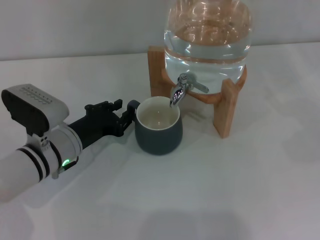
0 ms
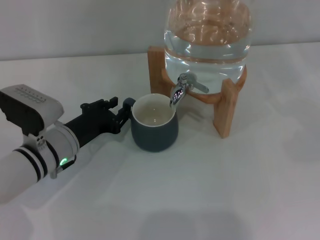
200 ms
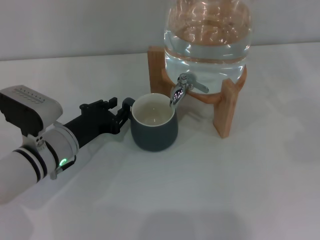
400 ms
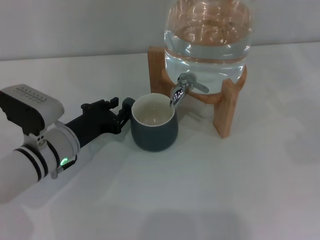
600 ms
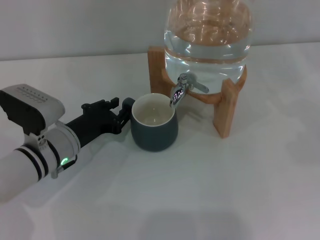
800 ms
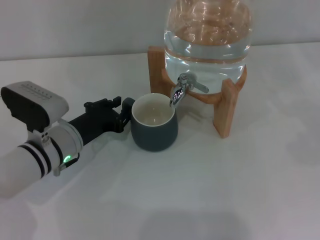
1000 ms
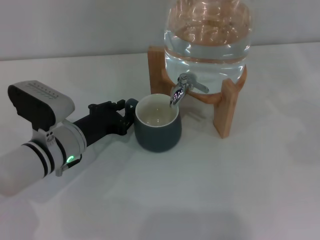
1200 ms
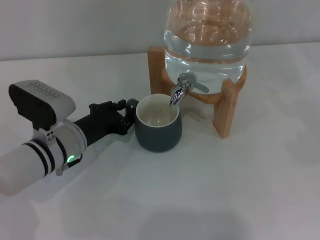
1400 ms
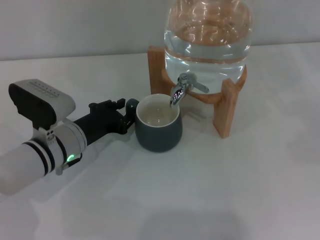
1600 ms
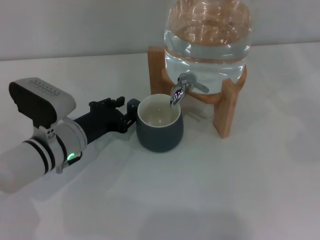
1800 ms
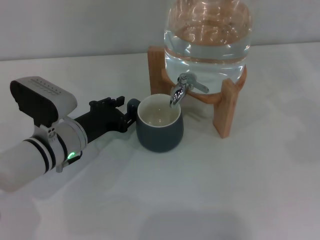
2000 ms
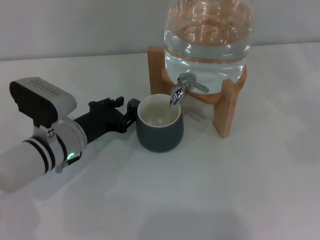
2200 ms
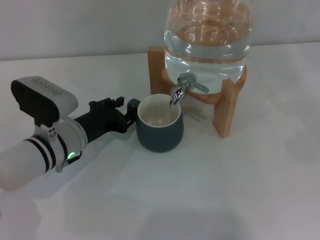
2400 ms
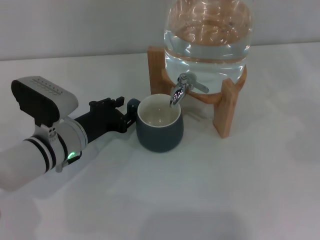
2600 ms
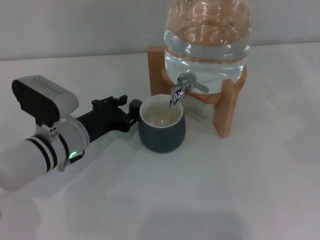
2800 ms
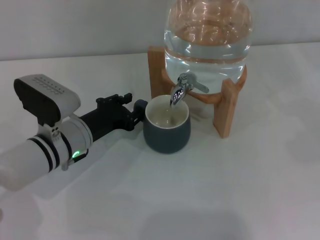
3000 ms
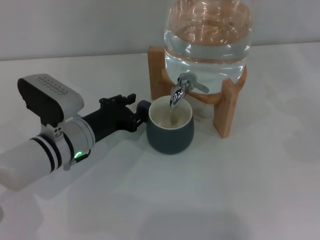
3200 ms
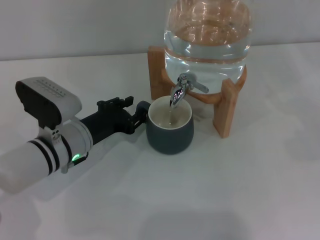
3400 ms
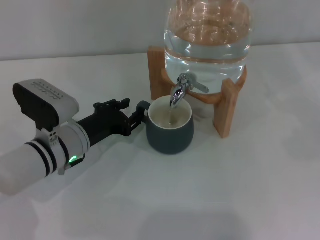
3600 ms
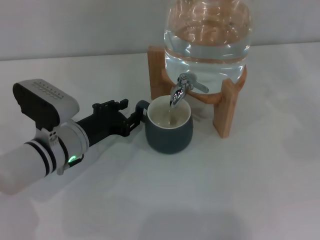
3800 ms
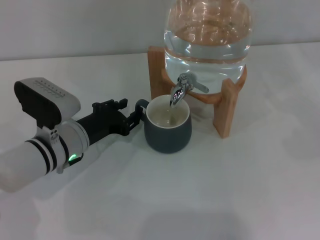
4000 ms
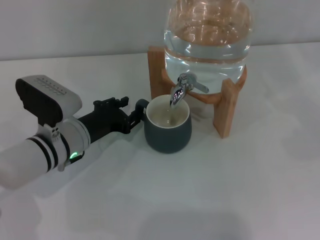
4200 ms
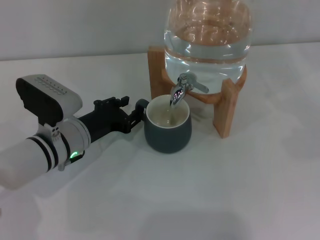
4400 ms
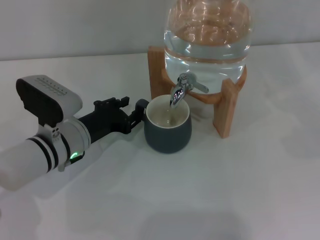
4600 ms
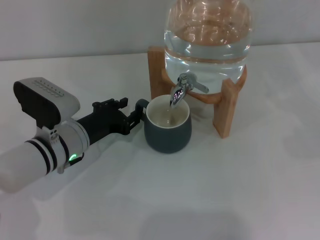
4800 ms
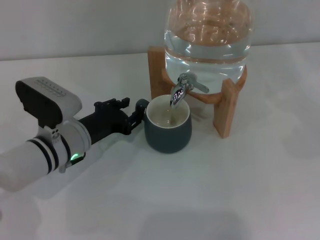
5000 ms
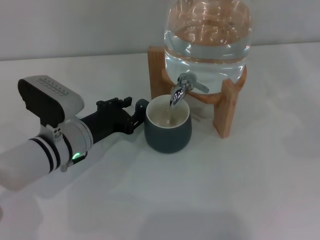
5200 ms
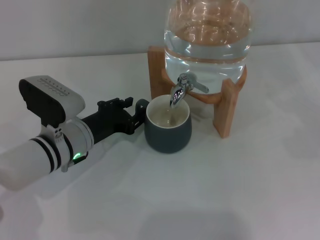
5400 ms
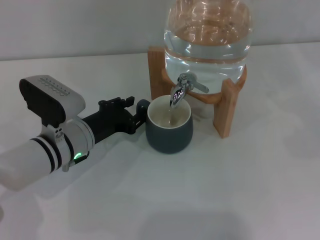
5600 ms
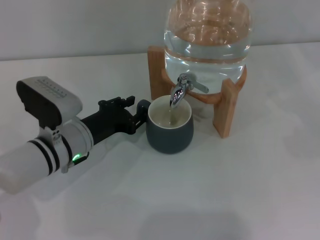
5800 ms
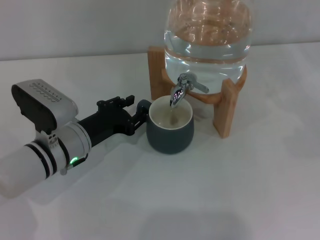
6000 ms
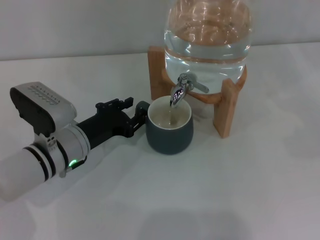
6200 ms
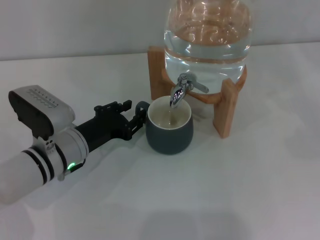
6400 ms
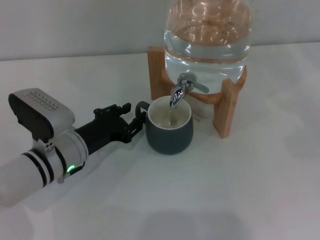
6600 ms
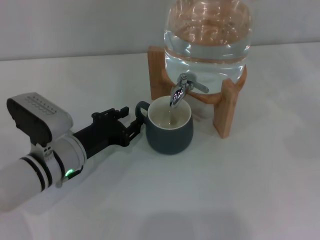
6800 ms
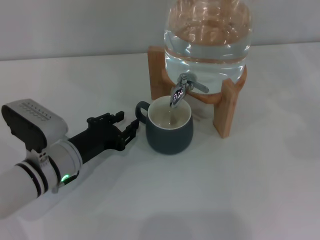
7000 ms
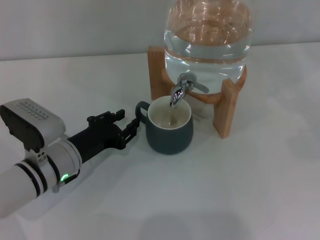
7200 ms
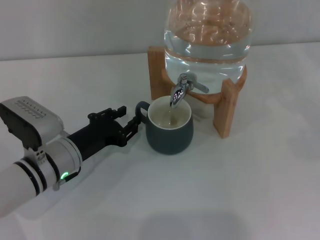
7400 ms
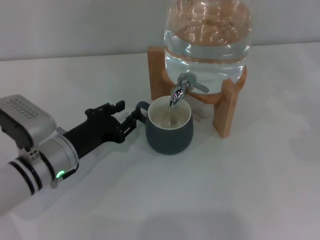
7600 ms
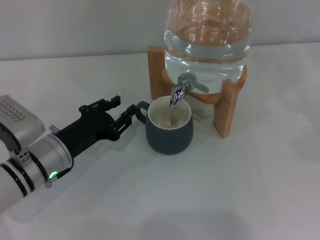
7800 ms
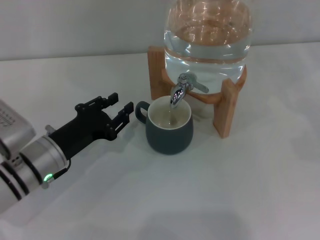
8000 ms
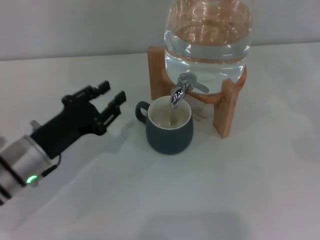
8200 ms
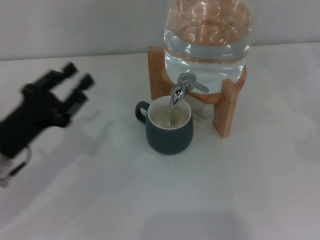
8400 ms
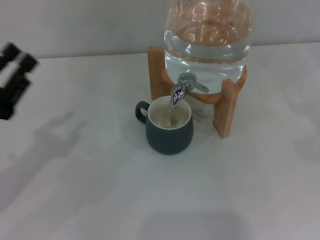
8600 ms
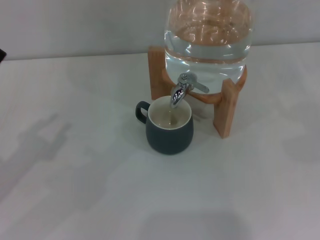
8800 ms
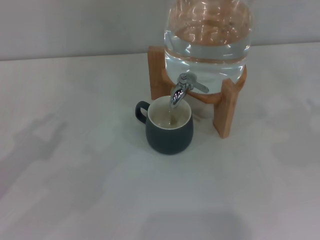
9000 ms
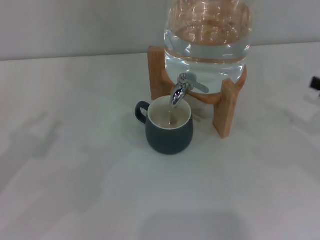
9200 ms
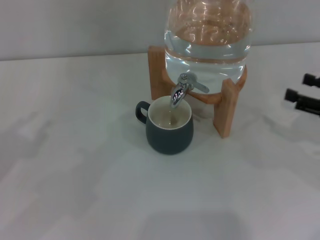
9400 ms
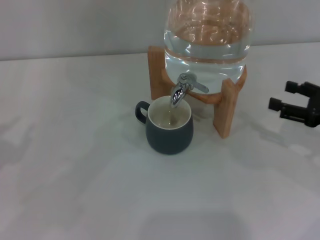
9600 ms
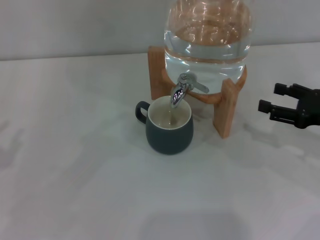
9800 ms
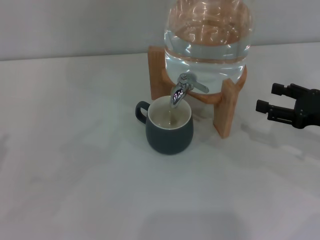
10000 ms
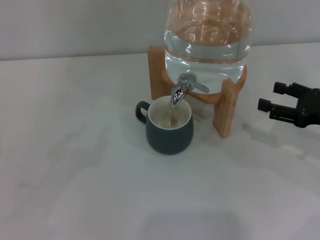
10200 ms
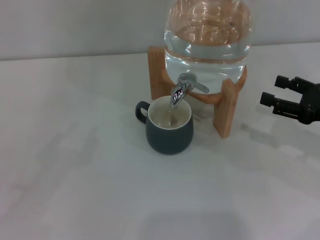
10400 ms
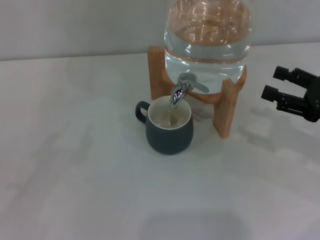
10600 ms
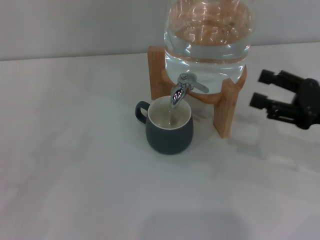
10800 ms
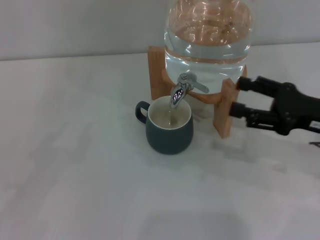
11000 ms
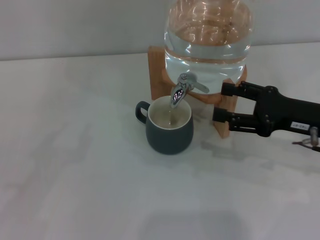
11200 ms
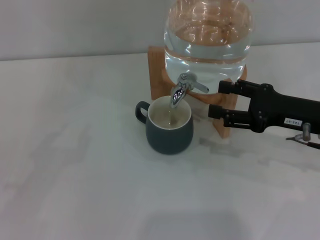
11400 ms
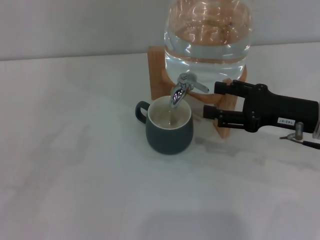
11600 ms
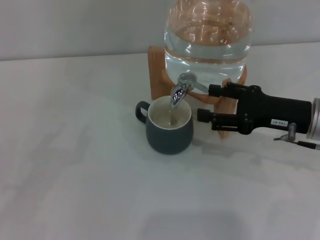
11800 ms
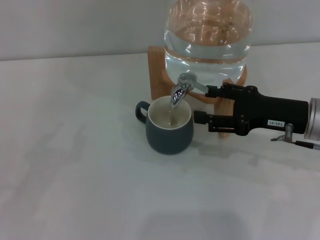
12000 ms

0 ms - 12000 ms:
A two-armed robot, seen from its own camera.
Task of the whole recording: the left gripper pick up the black cup and place it horizontally under the faucet, the right gripper turn on the faucet to fill the cup, and then turn off the faucet.
Step, 0 ms - 7800 ms: Move the cup beneath the water dispenser nozzle with the left gripper.
0 ms - 1600 ms: Neither gripper changes place.
1600 ms - 4400 ms: Neither gripper changes place.
4400 ms - 7600 ms: There are only small adjustments of the grippers.
7600 ms - 9000 ms: The left gripper moves to the left, upward and backward, some 20 cm.
9000 ms - 10400 ms: The right gripper moves to the left, some 10 cm.
10400 ms - 12000 ms: The right gripper heads to the left, covering approximately 10 cm.

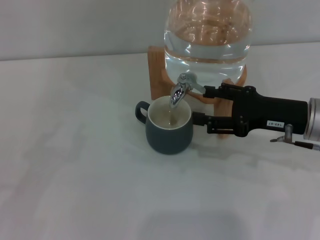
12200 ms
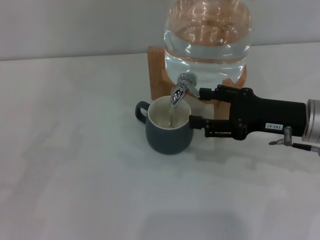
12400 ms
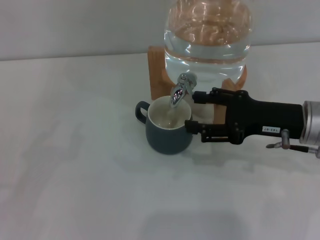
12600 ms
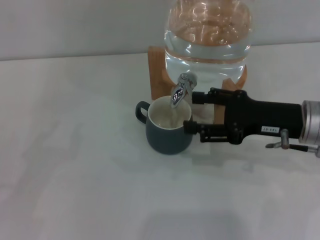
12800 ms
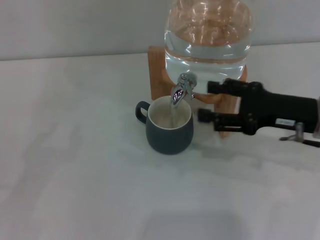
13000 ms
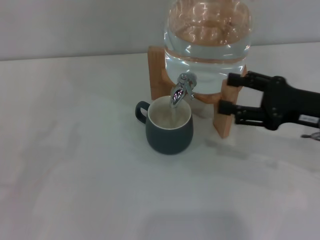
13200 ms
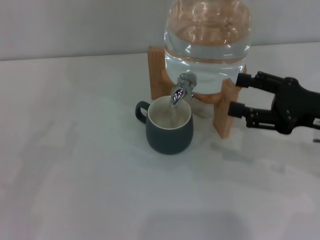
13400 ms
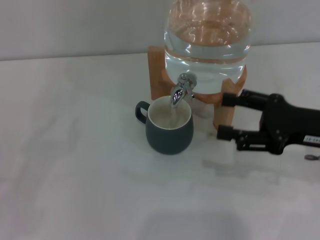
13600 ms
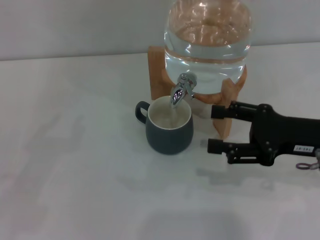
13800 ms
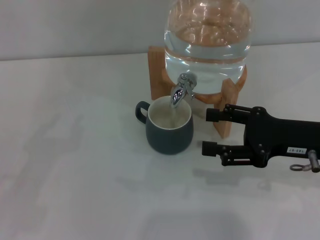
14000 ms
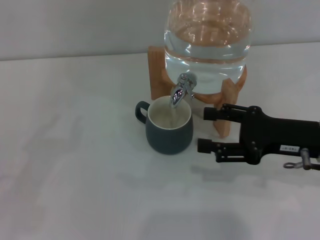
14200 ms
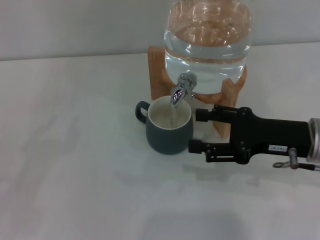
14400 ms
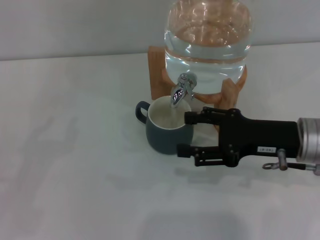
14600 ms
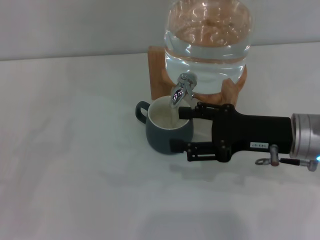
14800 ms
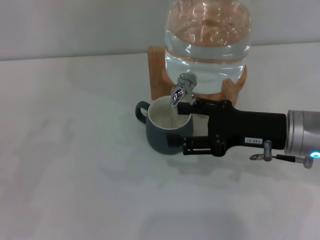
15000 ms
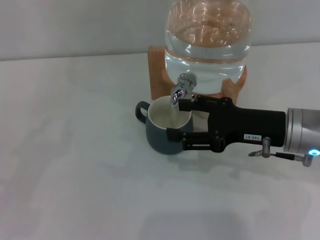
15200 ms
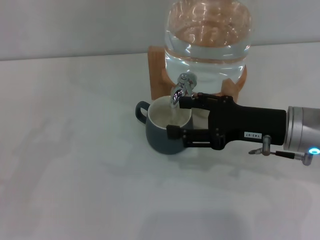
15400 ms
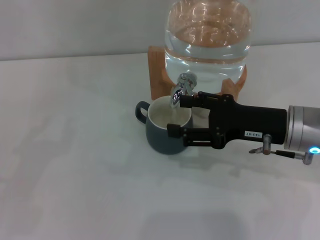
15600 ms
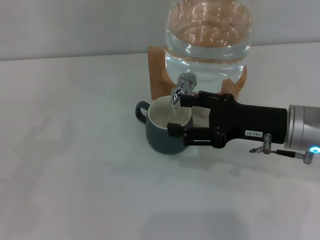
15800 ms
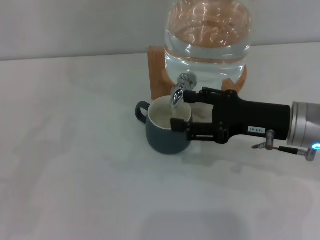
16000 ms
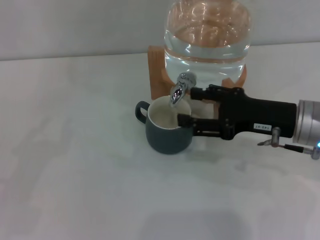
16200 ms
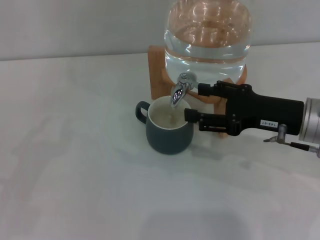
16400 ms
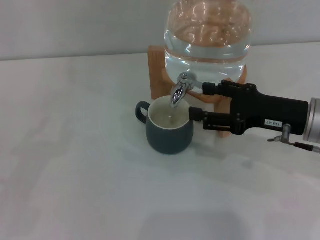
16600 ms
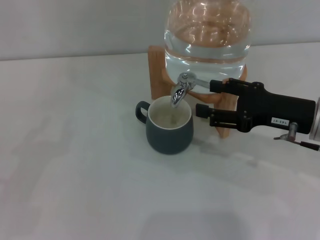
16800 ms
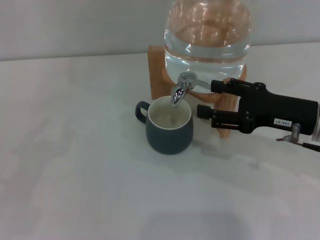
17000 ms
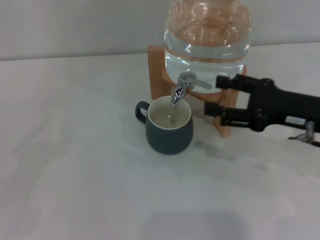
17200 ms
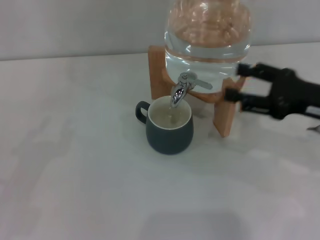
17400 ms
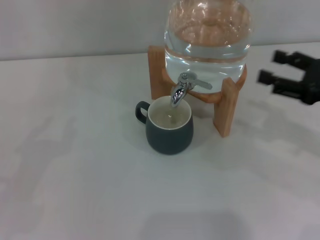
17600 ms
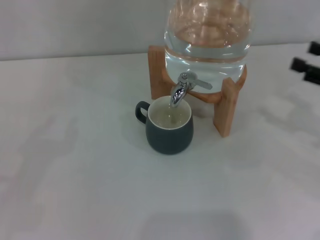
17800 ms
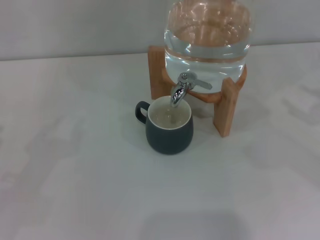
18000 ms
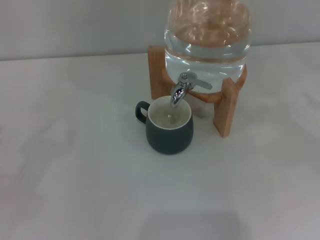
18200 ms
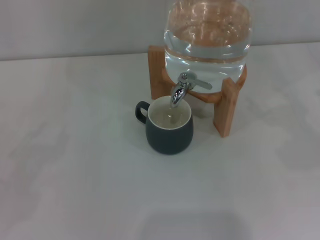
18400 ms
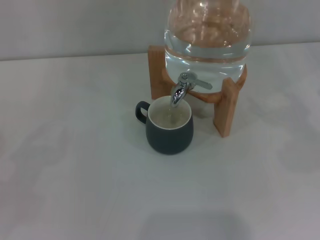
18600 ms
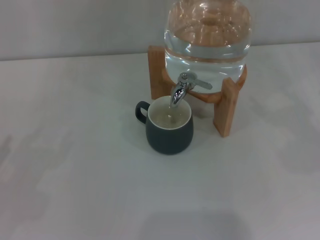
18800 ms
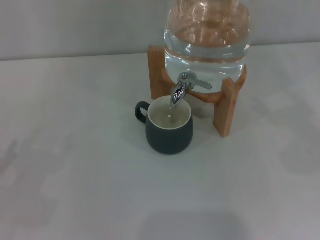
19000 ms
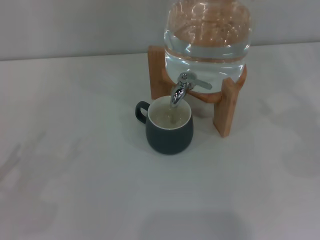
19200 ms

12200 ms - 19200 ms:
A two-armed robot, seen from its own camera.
Task of the whole recording: the left gripper pick up the black cup and place it horizontally under the faucet, the right gripper turn on the faucet to fill the cup, and then turn off the faucet.
Step, 13200 ms - 17000 ms: Close the dispenser valve with the right gripper.
12200 ms - 13600 ms: The grippers make only small movements.
13600 ms - 15000 ms: The right gripper heads to the left, covering roughly 5 cm.
15000 ms - 16400 ms: The grippers stay close to where they were, moving slightly.
16400 ms - 17800 ms: The right gripper travels to the right by approximately 15 cm.
17800 ms - 19200 ms: The right gripper travels to the right by roughly 10 cm.

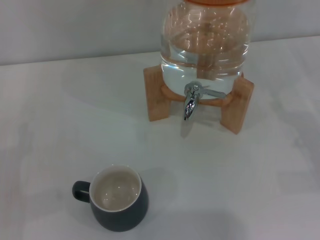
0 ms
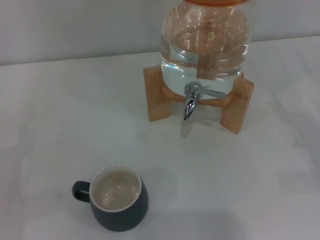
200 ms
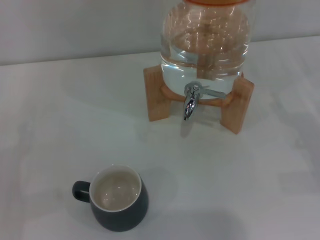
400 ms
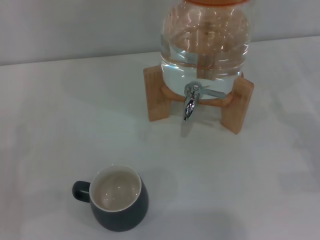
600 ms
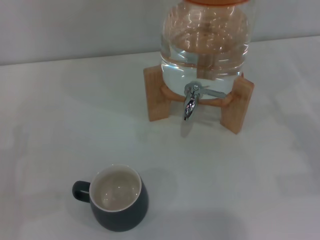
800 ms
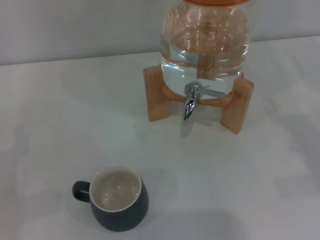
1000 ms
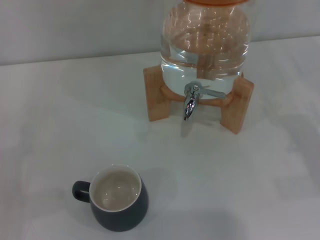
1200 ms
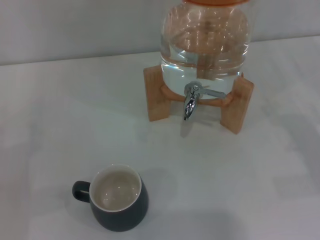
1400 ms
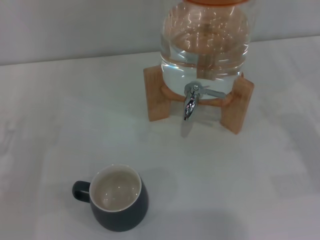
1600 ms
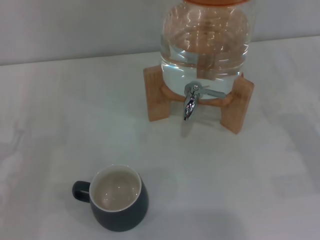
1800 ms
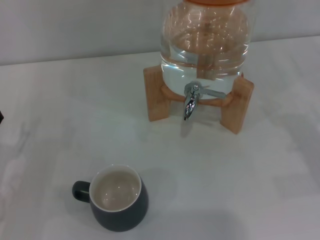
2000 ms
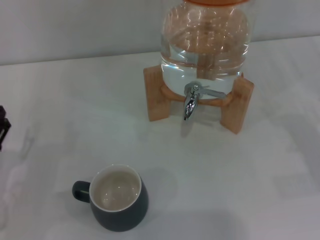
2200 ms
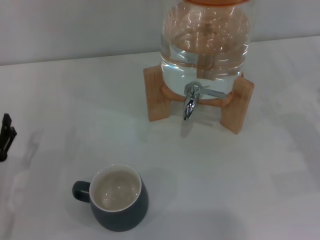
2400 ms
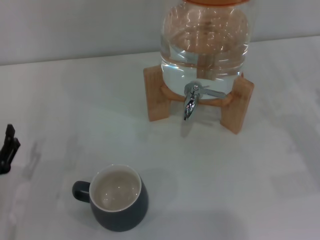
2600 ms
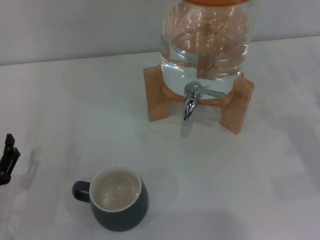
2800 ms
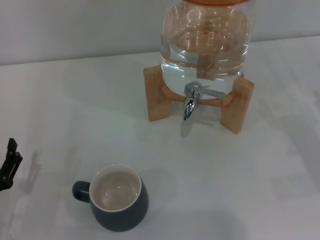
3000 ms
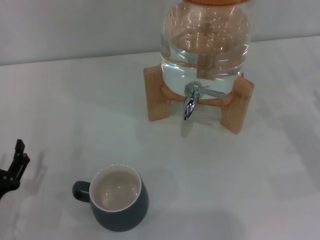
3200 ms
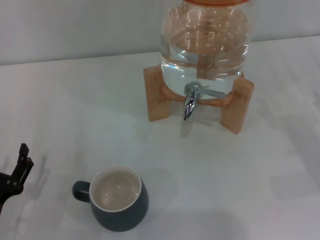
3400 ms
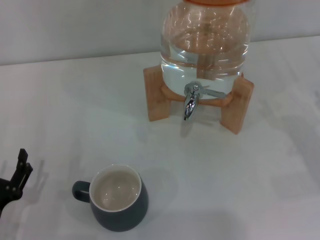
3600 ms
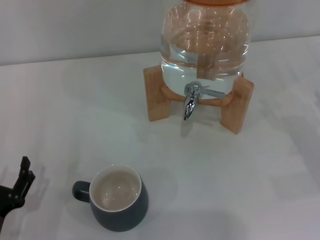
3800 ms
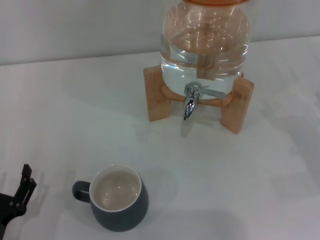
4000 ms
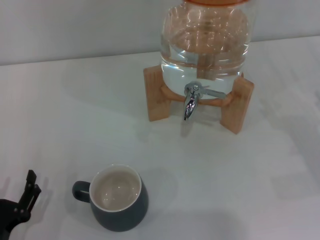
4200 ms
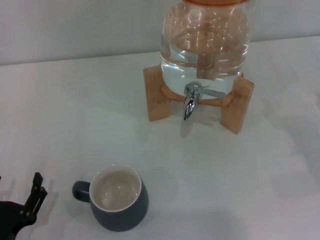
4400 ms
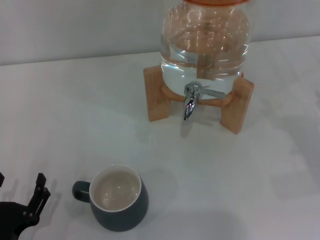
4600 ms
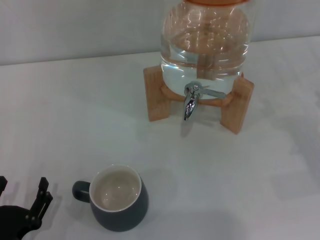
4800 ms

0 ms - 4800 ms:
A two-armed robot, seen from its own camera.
Task of the whole recording: the left gripper pick up the black cup and place it horizontally under the faucet, the right gripper turn on the faucet to fill the cup, and then turn off the faucet.
1600 ms - 3200 ms: The left gripper moves backward, about 10 cm.
3200 ms - 4800 ms: The left gripper heads backward, covering approximately 5 cm.
